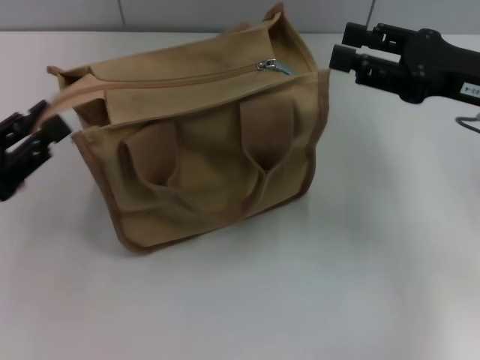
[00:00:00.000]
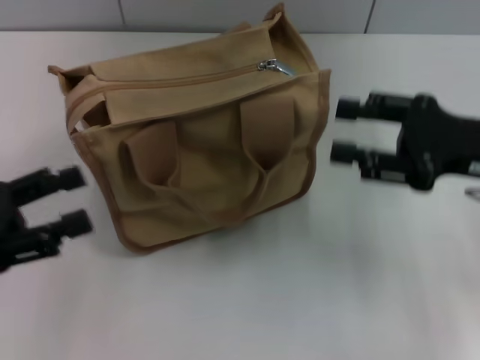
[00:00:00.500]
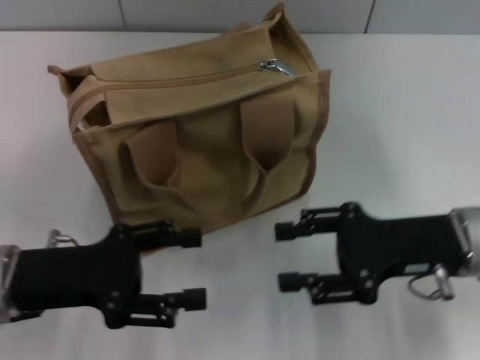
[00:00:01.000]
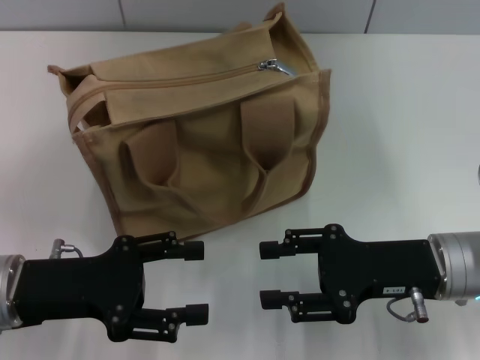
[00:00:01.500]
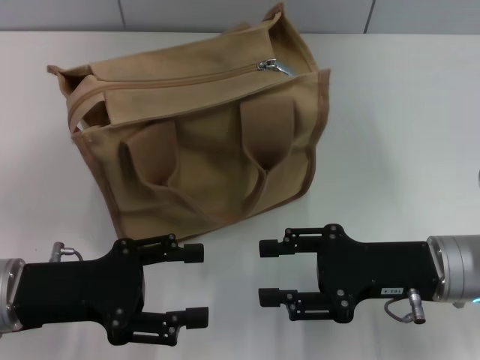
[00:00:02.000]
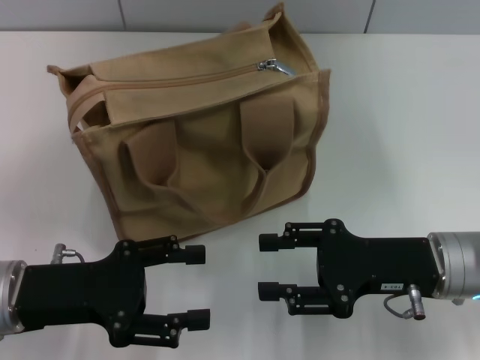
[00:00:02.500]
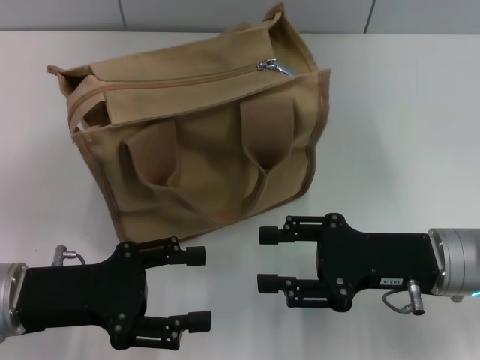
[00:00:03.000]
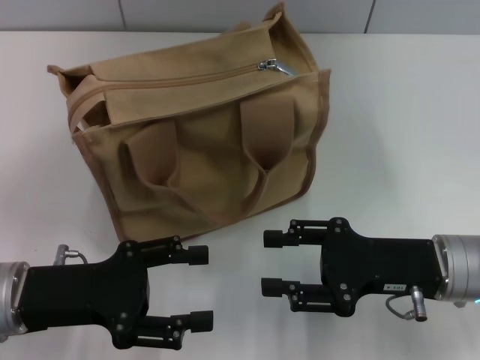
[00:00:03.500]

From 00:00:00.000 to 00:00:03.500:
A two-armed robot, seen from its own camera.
From 00:00:00.000 to 00:00:02.000: The right gripper is displaced downward, backward and to the left by some 15 cm, while the left gripper goes about 5 cm to the right, and opens.
From 00:00:02.000 to 00:00:03.500: Neither gripper changes place.

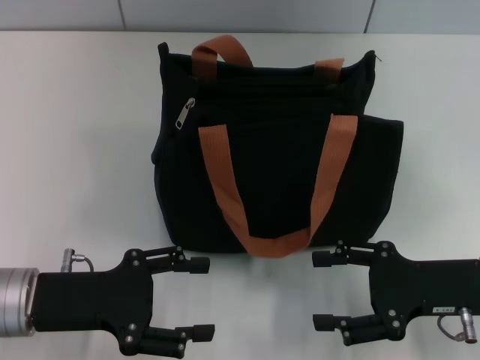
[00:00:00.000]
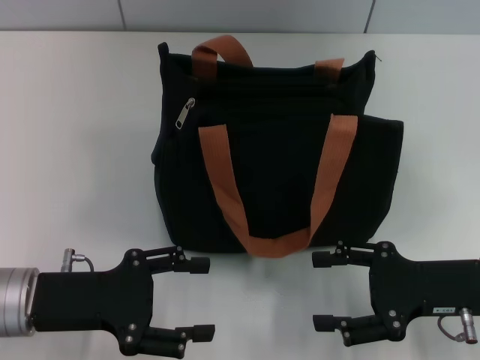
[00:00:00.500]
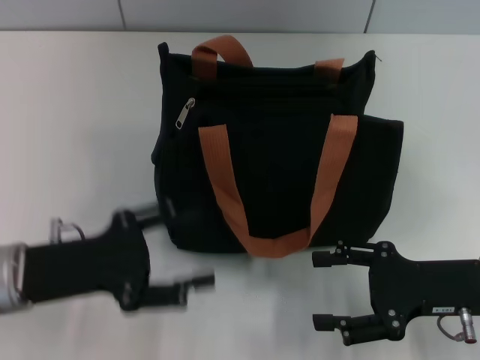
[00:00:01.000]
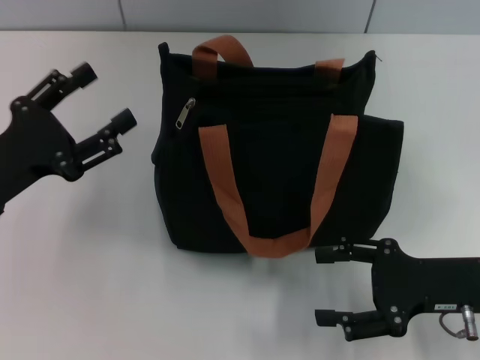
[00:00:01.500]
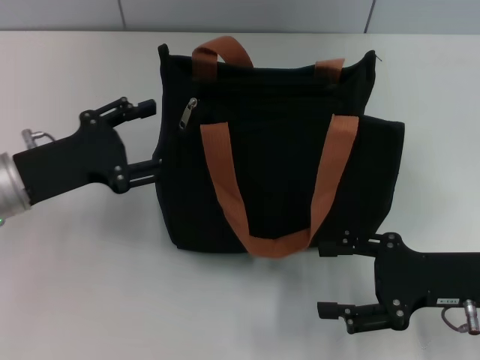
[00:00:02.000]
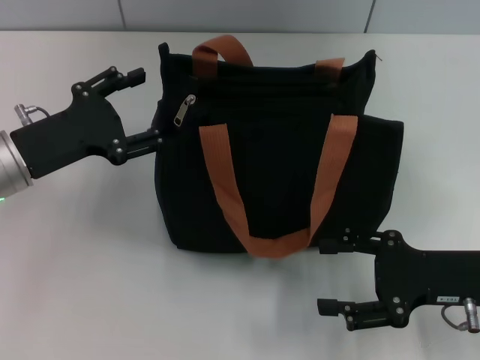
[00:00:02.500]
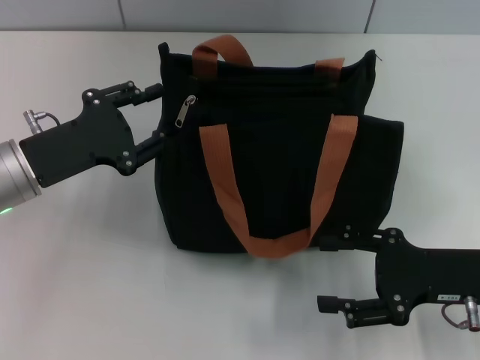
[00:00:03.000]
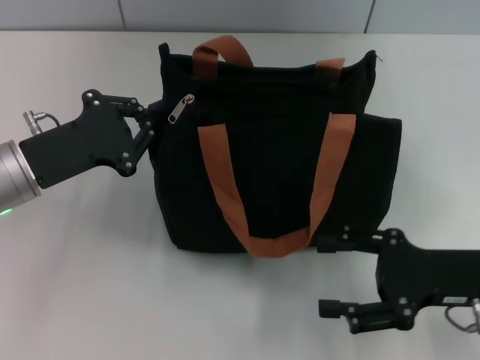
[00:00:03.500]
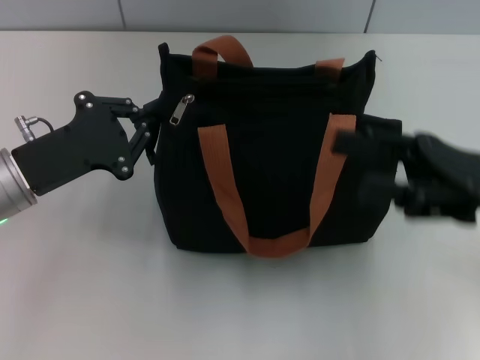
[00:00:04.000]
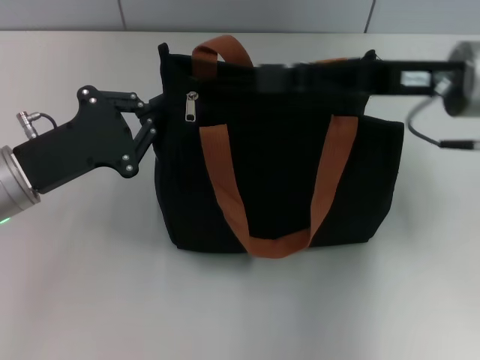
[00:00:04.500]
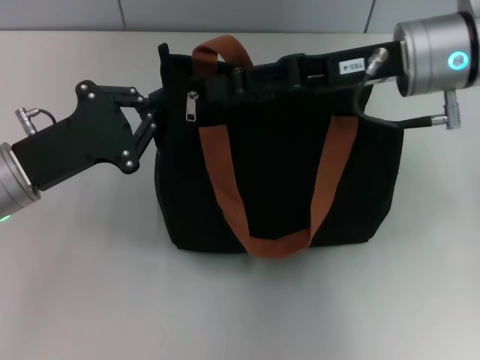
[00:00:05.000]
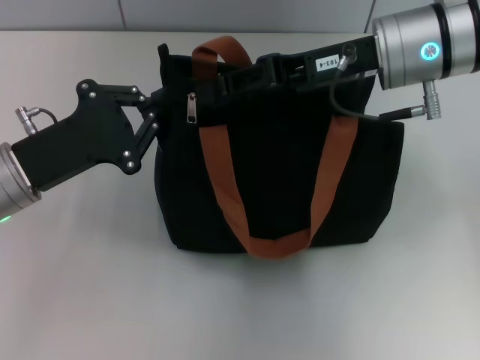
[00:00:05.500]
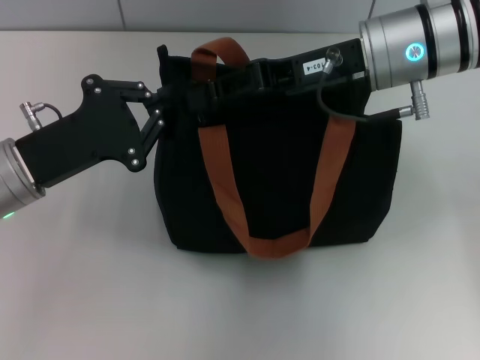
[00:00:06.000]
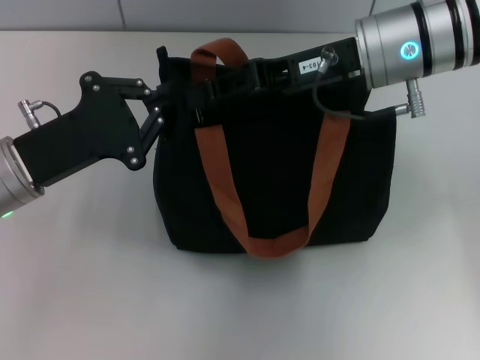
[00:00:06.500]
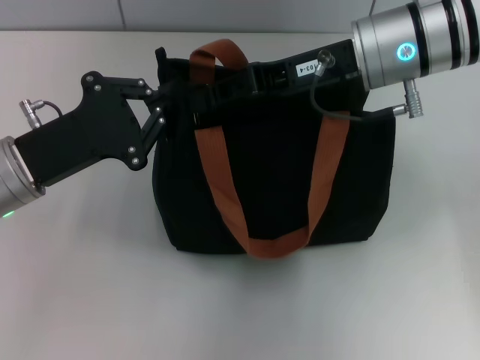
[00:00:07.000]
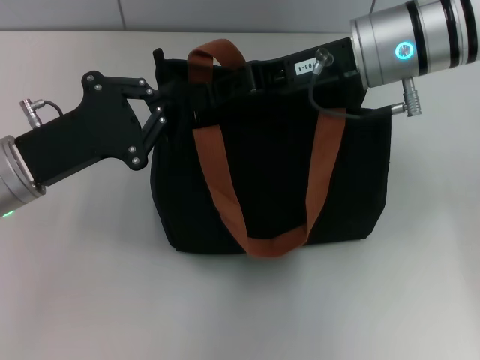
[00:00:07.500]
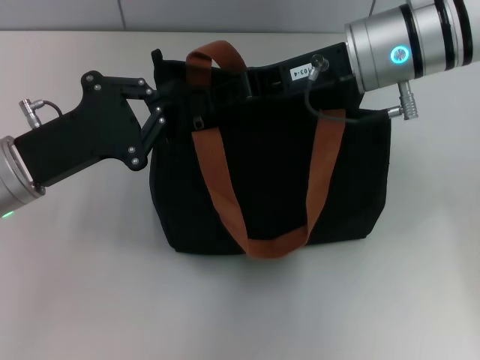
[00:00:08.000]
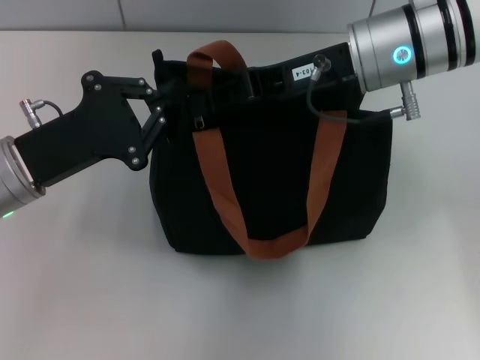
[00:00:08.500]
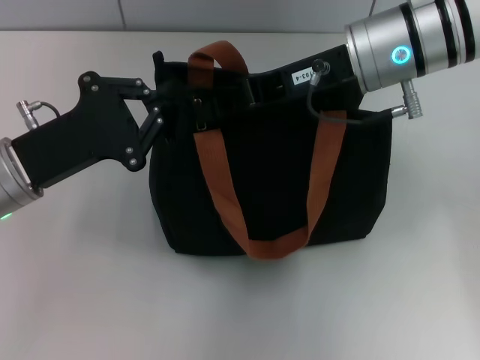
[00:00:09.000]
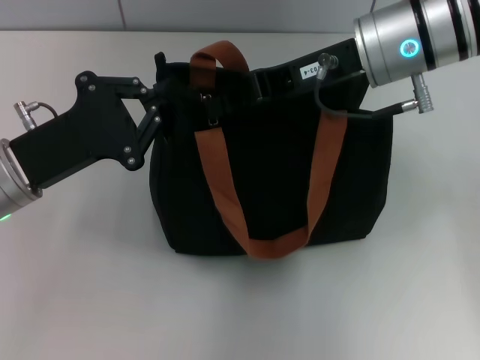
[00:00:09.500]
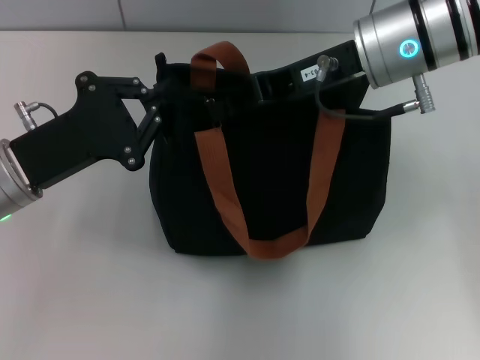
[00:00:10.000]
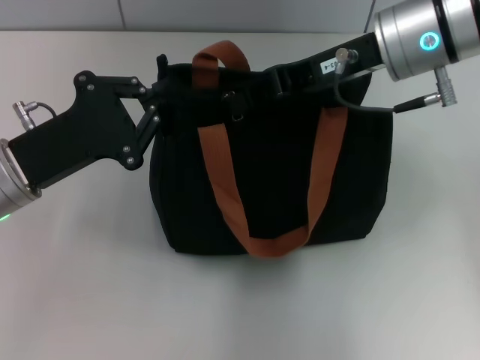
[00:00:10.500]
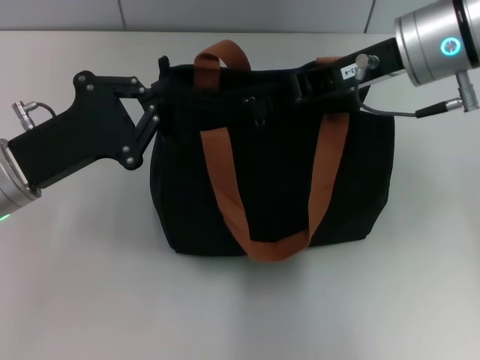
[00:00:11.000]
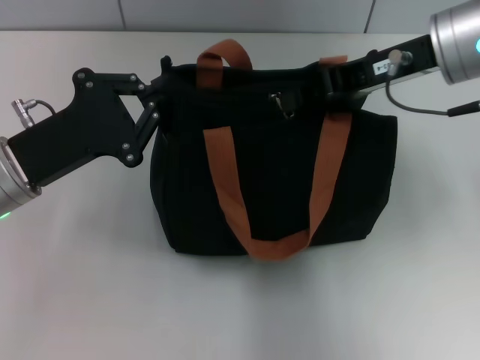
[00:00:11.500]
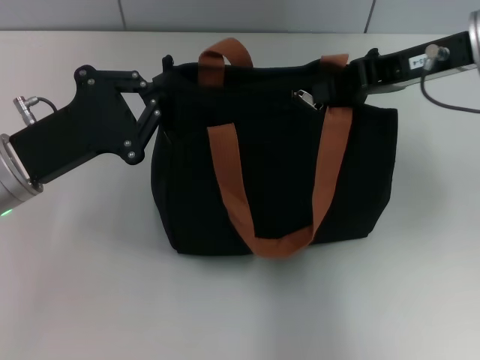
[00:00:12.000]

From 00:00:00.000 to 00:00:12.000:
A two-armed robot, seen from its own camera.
From 00:00:00.000 to 00:00:02.000: The left gripper shifts approximately 10 cm forward.
From 00:00:02.000 to 00:00:04.000: The right gripper heads upward, covering roughly 10 cm; the left gripper closes up.
From 00:00:04.000 to 00:00:06.000: The right gripper travels to the left, forward and upward by about 15 cm, and closes its fingers.
From 00:00:06.000 to 00:00:08.000: Neither gripper changes place.
From 00:00:08.000 to 00:00:10.000: The grippers make only small movements.
From 00:00:10.000 to 00:00:12.000: The right gripper goes roughly 10 cm to the right.

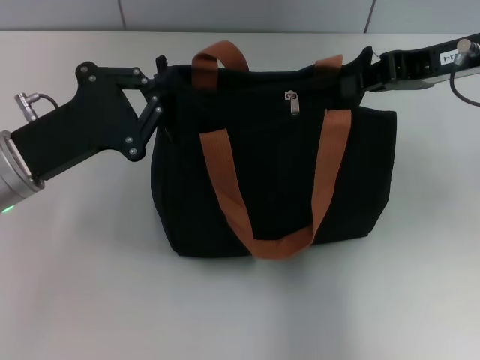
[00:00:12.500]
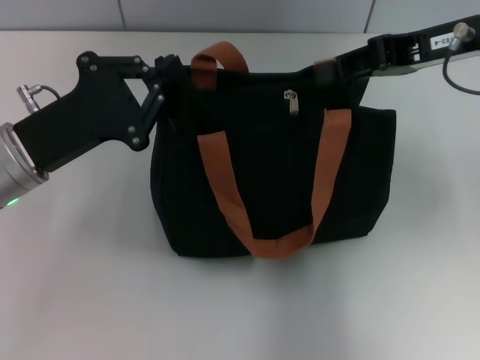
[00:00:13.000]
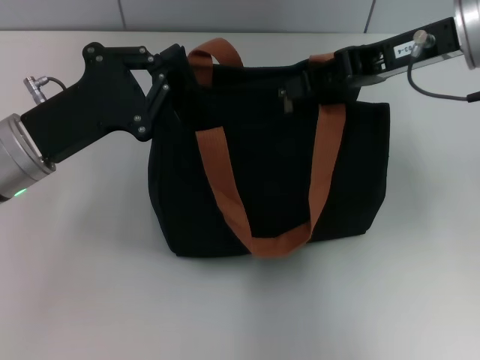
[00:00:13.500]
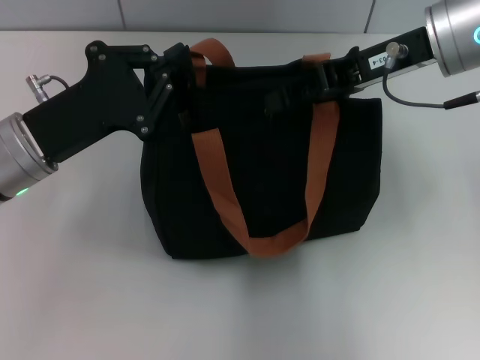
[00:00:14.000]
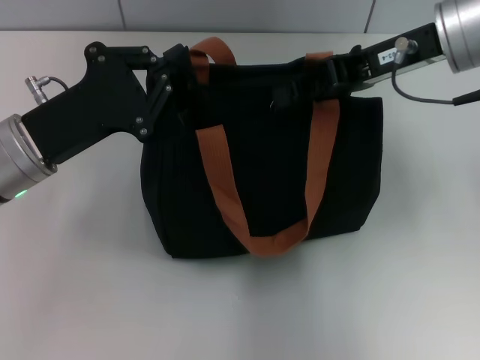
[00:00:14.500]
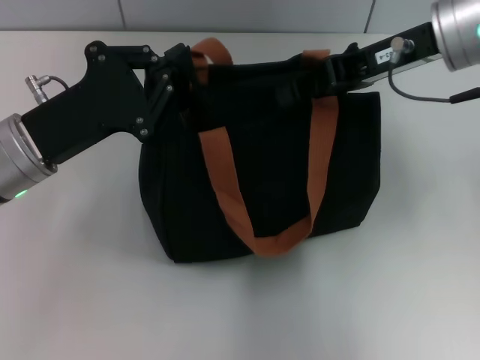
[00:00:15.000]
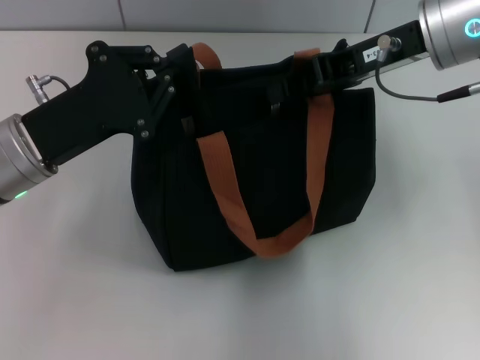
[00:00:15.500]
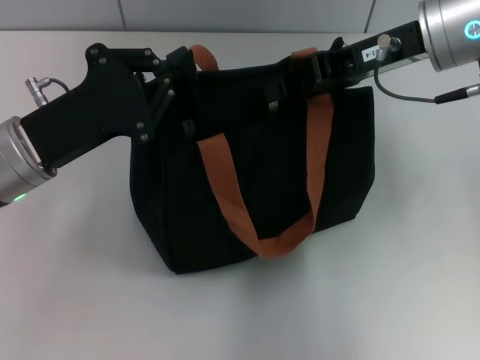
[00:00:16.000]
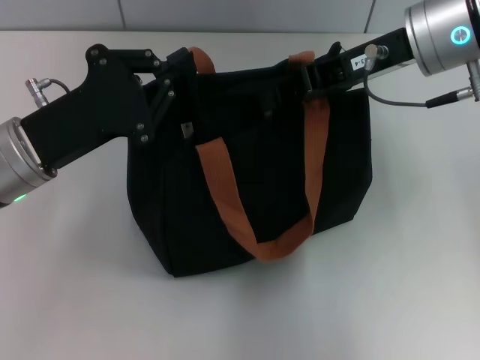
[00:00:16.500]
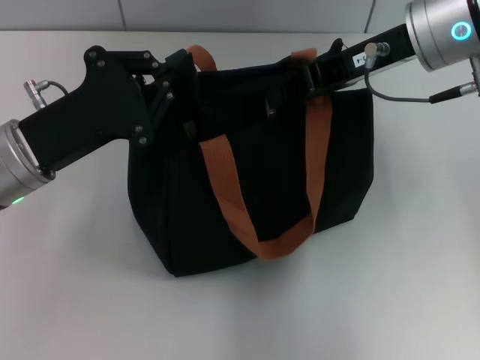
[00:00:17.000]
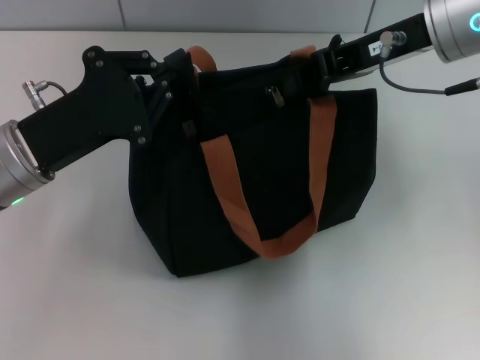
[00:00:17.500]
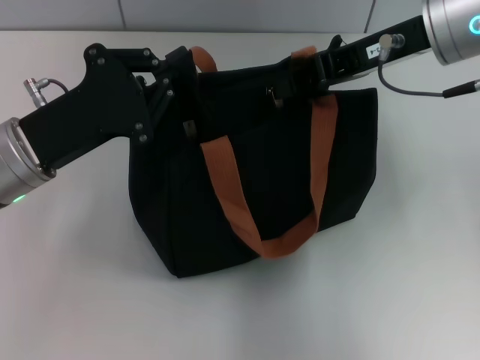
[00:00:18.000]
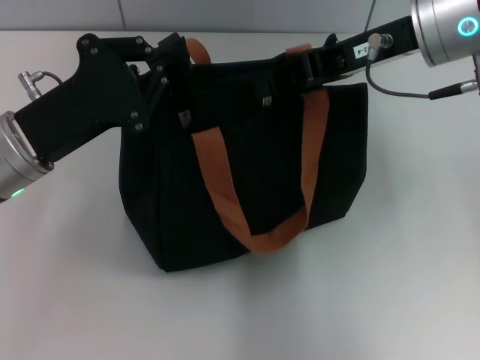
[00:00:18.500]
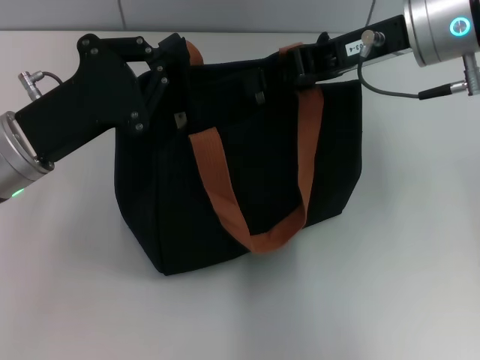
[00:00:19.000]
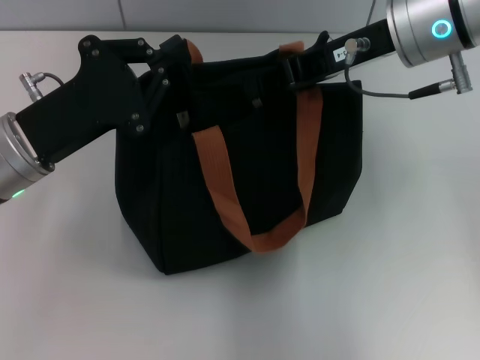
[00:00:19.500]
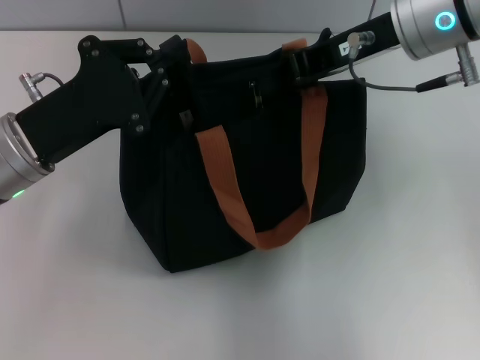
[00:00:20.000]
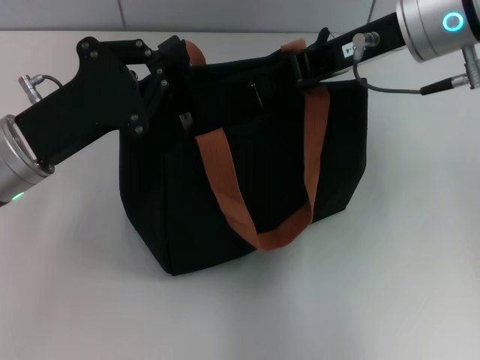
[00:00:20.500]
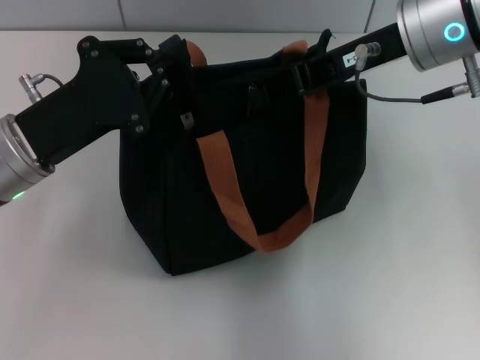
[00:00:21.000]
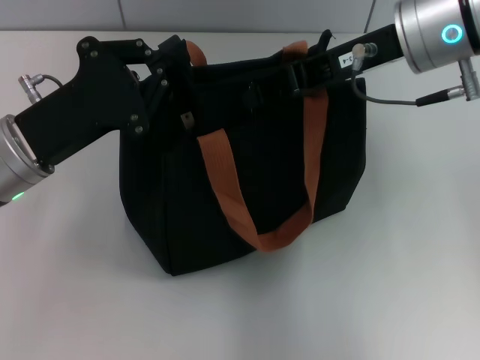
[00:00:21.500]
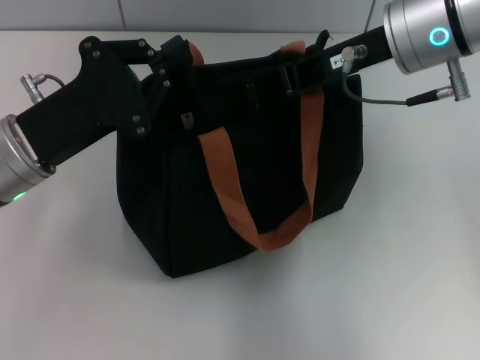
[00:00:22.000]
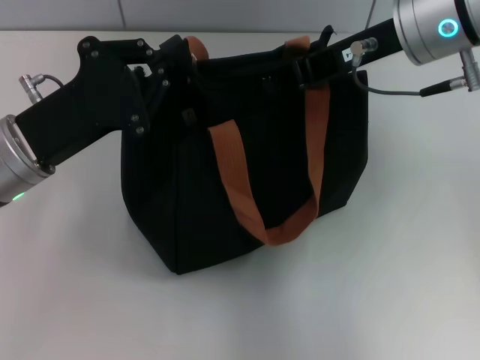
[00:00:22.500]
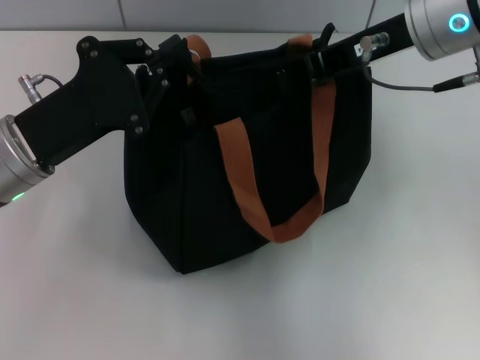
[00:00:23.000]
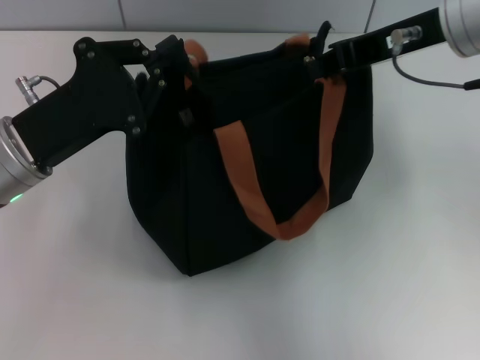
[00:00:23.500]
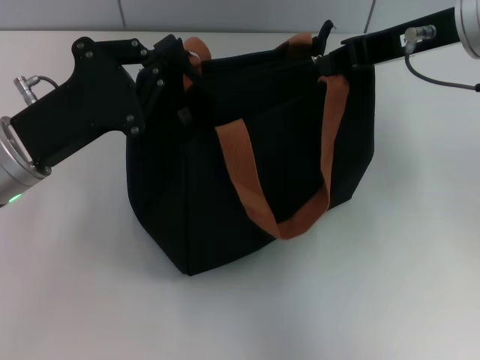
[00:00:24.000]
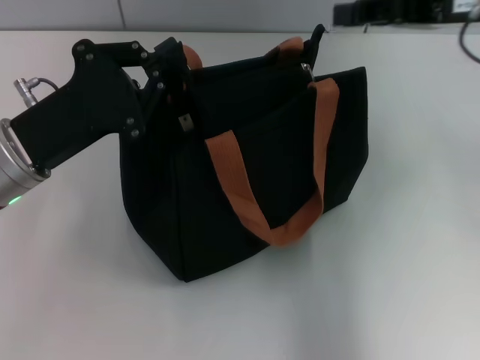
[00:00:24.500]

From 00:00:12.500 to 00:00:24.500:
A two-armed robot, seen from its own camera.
Step, from 00:00:12.500 to 00:00:24.000: Pull up the zipper with your right hand.
From 00:00:12.500 to 00:00:14.500: The right gripper ends up about 5 cm from where it was.
From 00:00:14.500 to 00:00:20.500: The grippers stay close to where they were, moving slightly.
From 00:00:20.500 to 00:00:22.500: Both grippers stay about where they are.
From 00:00:22.500 to 00:00:24.500: The right gripper heads to the right, covering roughly 10 cm.
